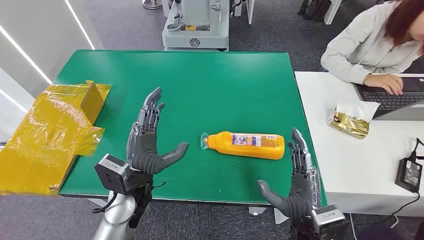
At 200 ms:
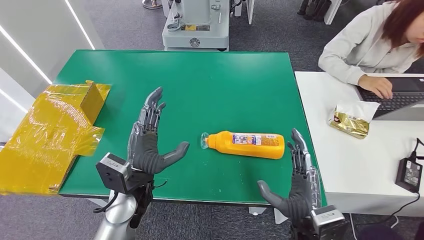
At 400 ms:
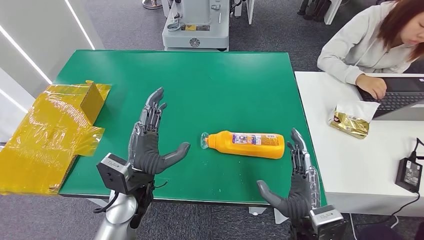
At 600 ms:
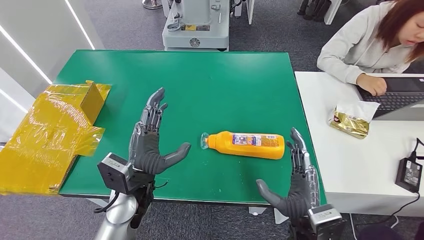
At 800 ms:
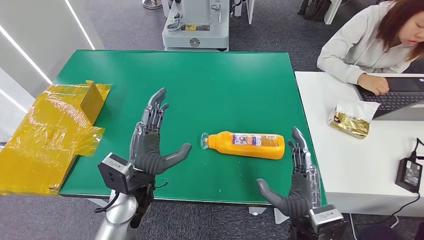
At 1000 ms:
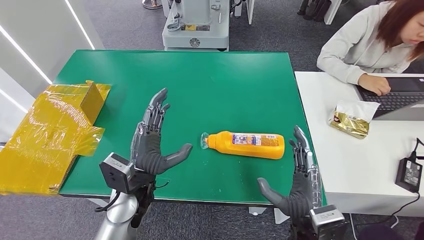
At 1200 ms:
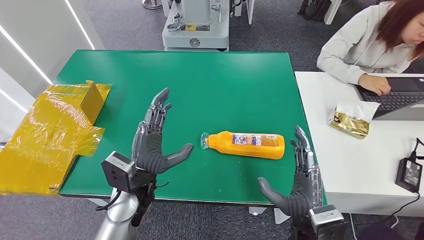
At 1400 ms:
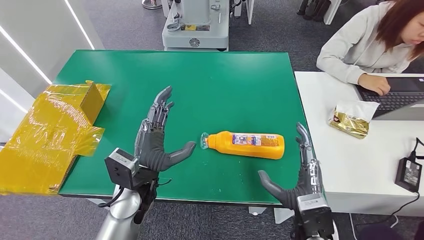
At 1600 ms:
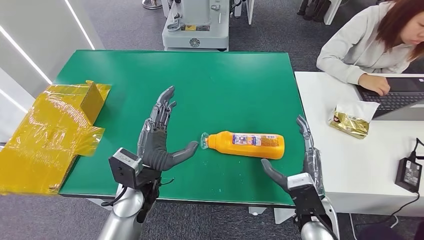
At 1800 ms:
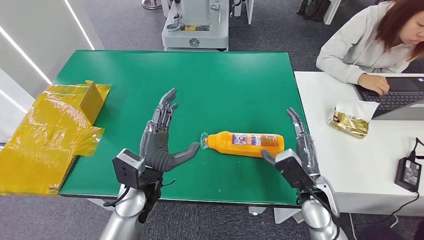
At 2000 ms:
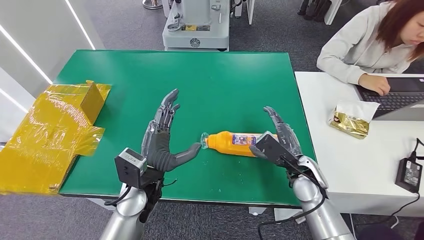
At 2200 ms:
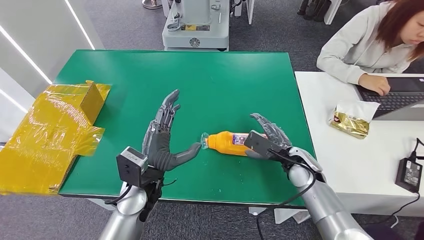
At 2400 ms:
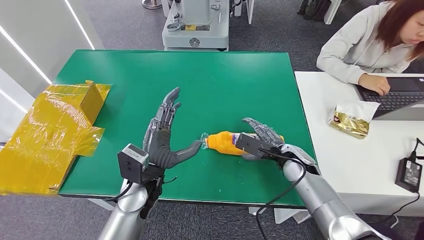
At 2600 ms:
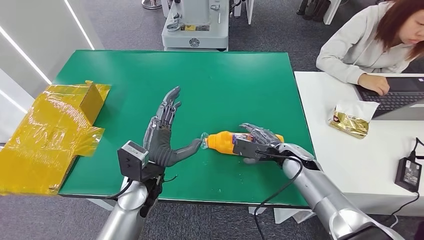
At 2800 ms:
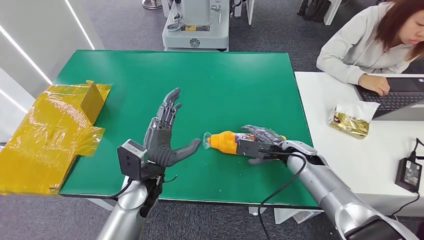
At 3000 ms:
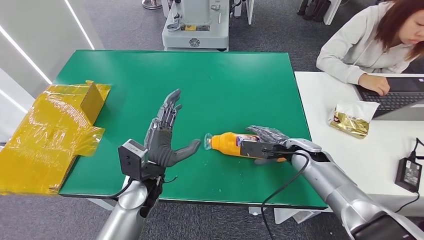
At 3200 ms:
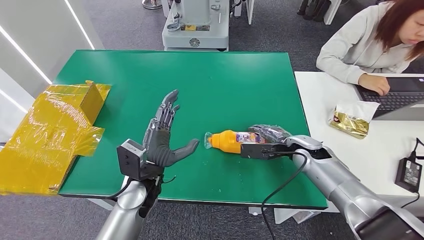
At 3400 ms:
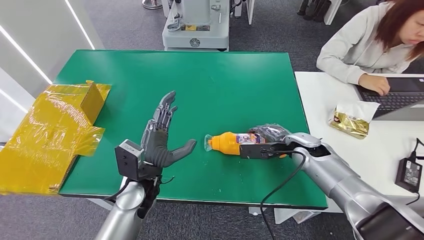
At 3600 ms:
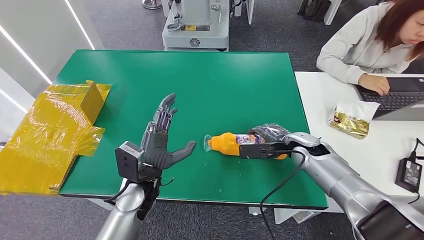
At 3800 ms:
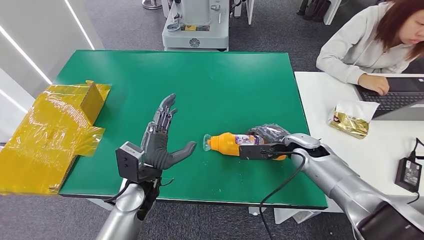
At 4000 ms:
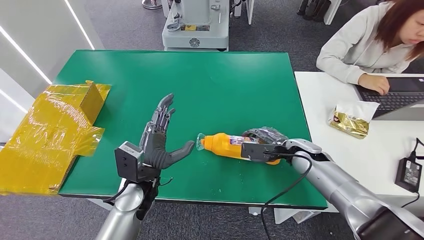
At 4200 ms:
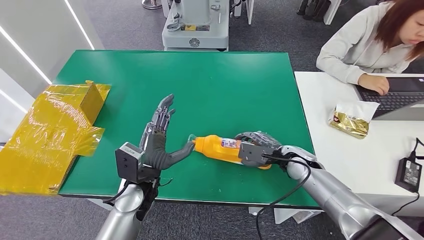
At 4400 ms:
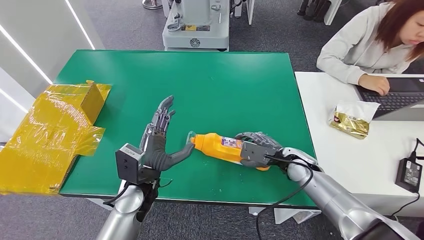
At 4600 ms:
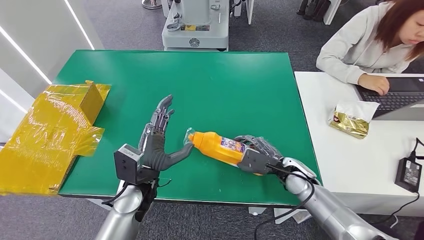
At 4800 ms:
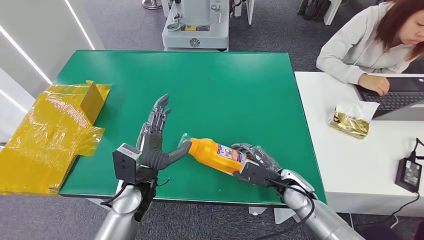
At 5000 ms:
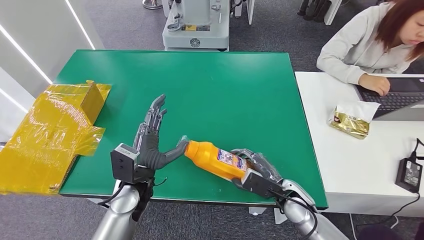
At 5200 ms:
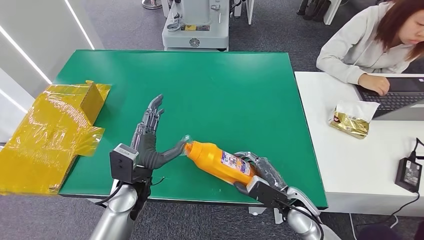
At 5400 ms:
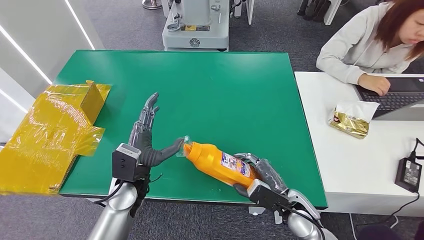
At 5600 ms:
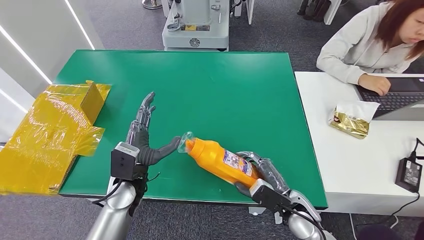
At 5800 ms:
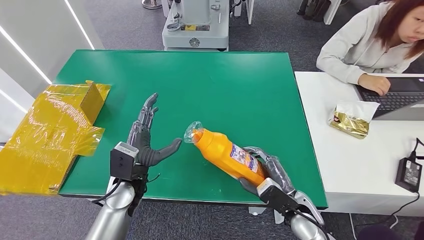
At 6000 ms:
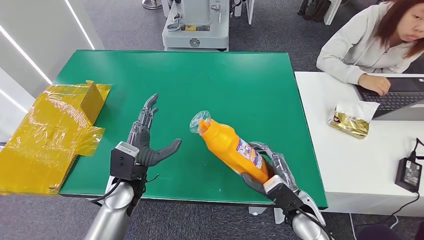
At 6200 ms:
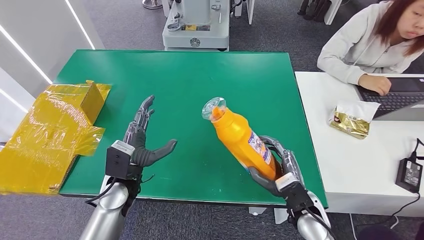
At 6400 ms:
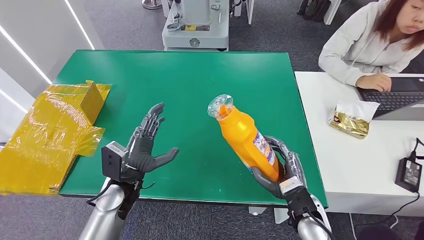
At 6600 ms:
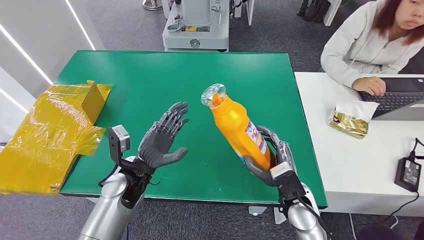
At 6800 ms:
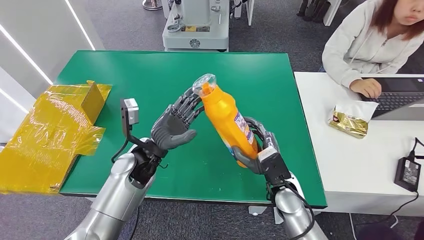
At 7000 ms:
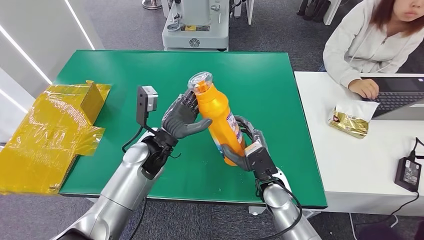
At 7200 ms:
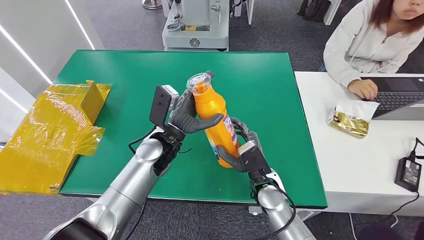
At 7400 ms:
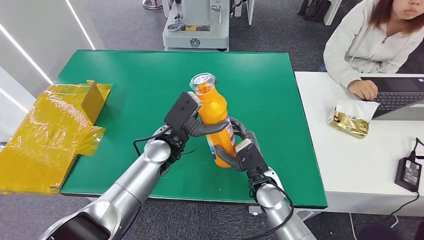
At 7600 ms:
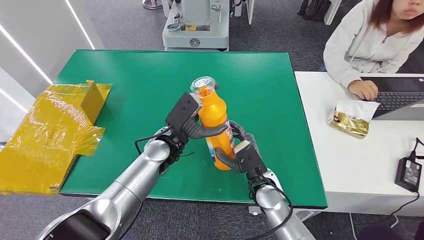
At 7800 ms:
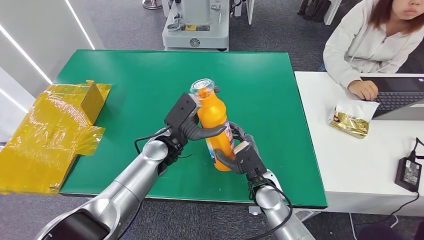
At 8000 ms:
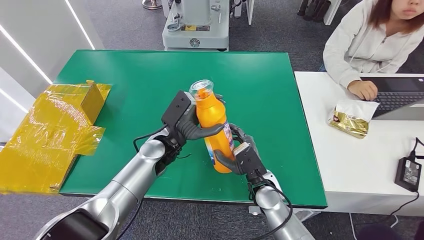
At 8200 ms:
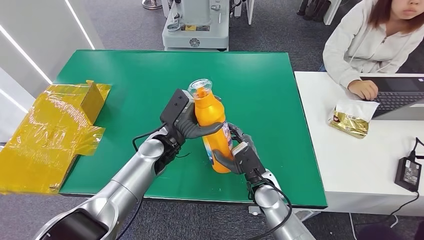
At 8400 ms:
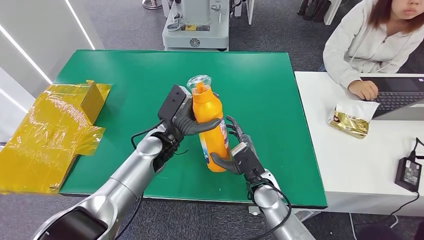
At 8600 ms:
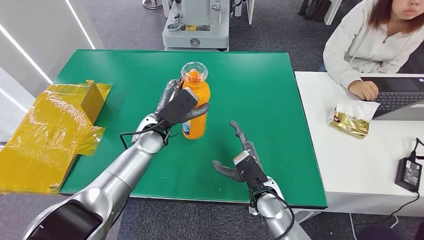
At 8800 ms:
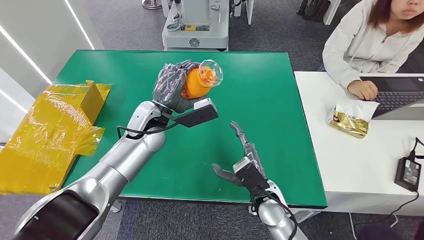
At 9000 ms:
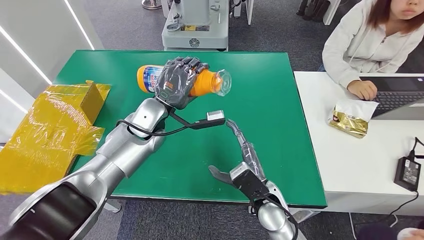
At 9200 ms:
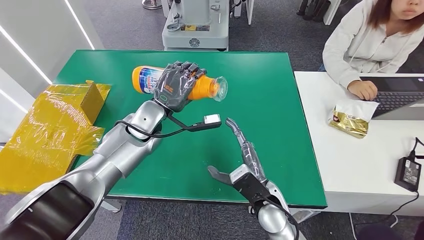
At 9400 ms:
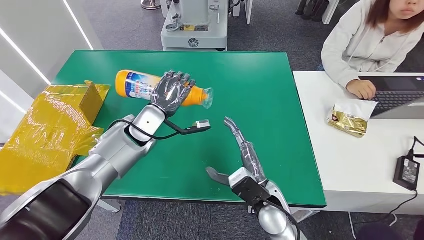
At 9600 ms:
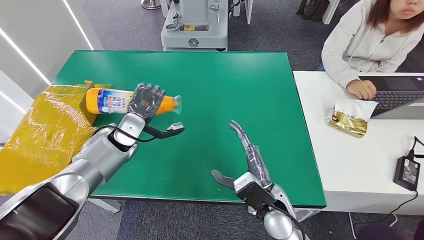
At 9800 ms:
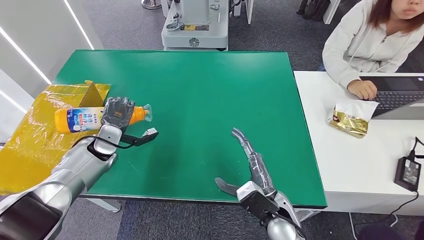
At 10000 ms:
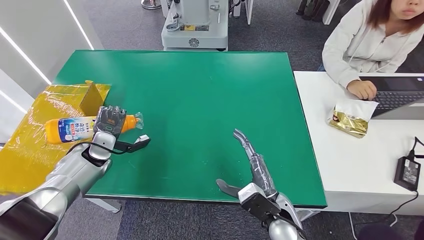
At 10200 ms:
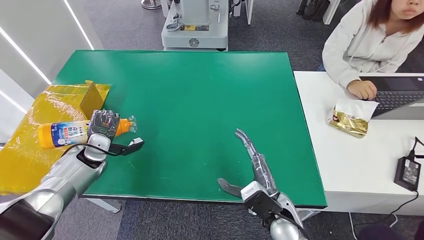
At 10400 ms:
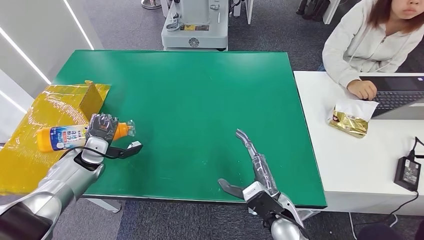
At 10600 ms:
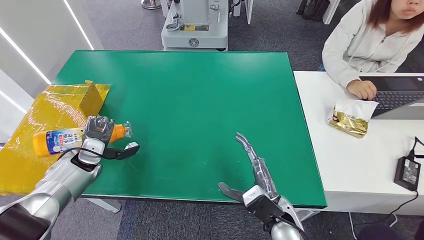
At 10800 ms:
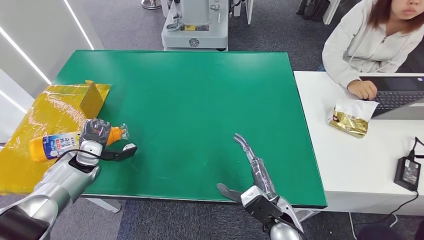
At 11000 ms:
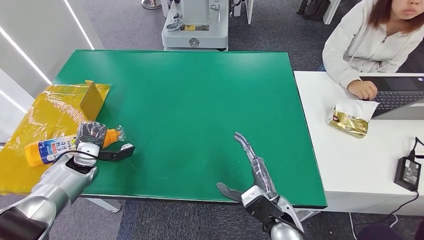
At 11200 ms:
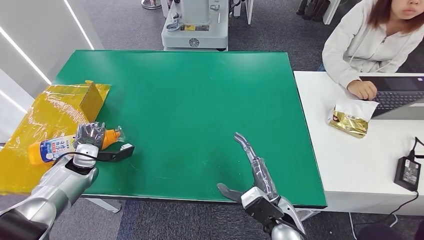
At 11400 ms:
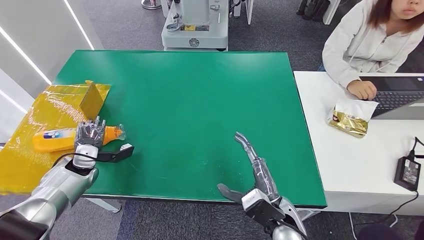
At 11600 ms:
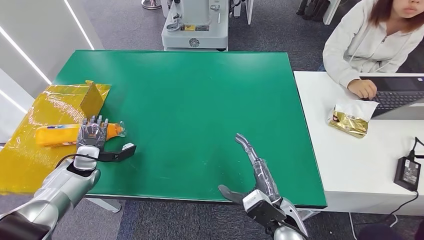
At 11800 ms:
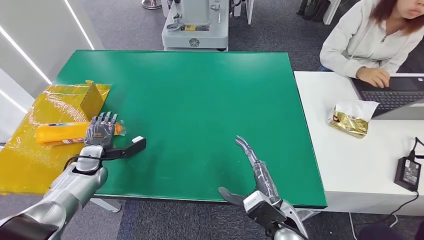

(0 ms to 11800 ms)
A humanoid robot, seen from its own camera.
Step, 0 ms - 5200 ms: Pick up the bottle from the table.
Step, 5600 ms - 11800 ms: Turn the bottle to the front side.
1400 ms - 3000 ms: The right hand goes roughly 20 cm forward.
3000 ms - 4400 ms: The hands make only small movements.
4400 ms - 6000 ms: The right hand travels backward by some 15 cm.
6000 ms - 7400 ms: The right hand is displaced to the left and forward by approximately 10 cm. The left hand shifts about 10 cm forward and to the right.
7400 ms - 8800 ms: The left hand is displaced upward by roughly 5 cm.
8800 ms - 10400 ms: The left hand is displaced to the left and downward by about 25 cm.
